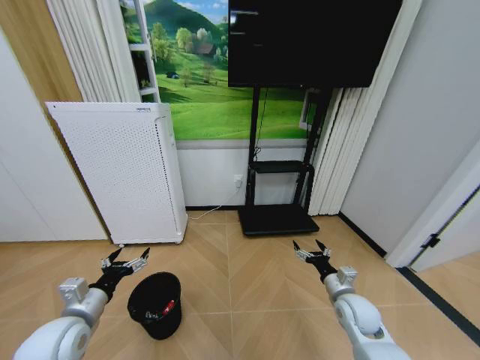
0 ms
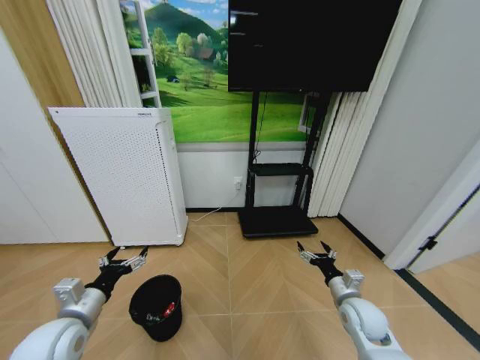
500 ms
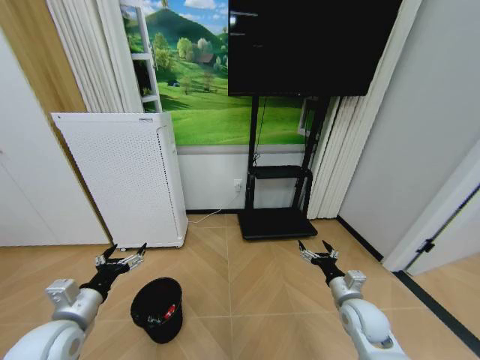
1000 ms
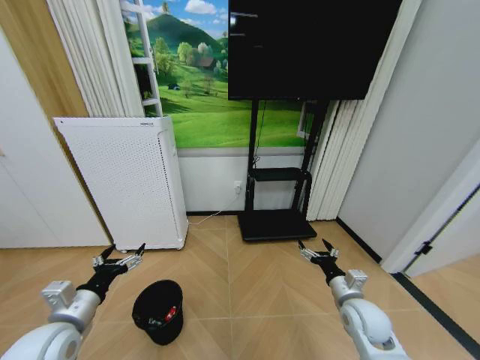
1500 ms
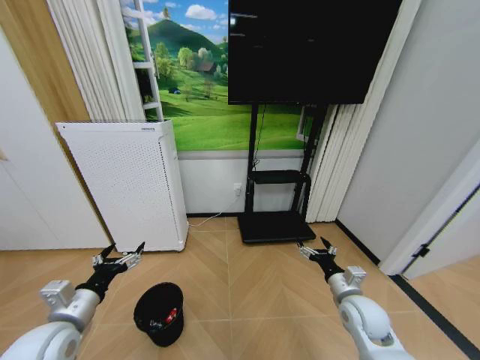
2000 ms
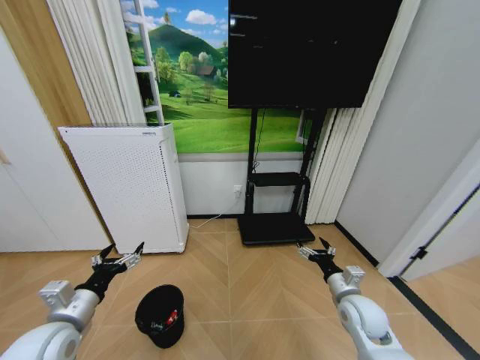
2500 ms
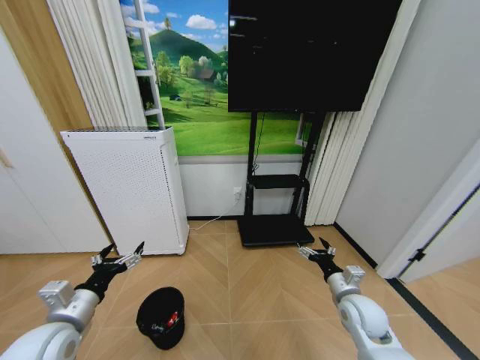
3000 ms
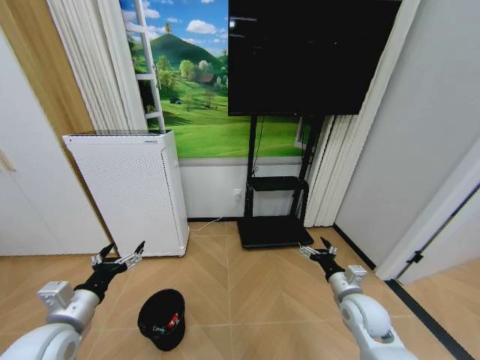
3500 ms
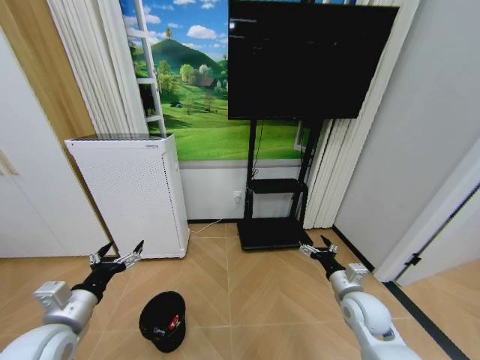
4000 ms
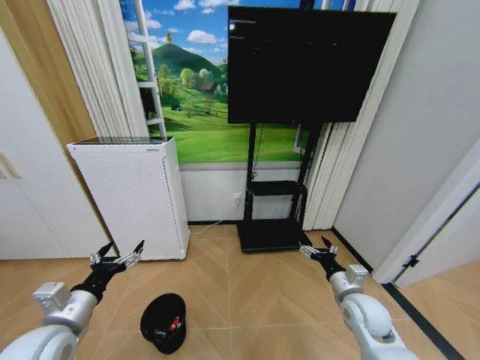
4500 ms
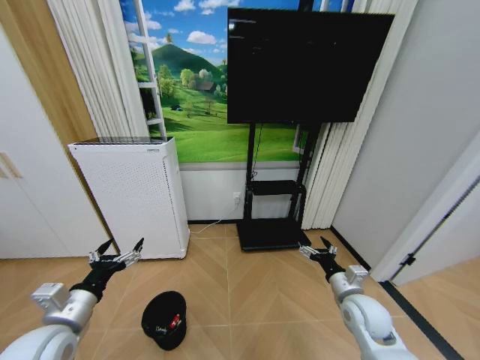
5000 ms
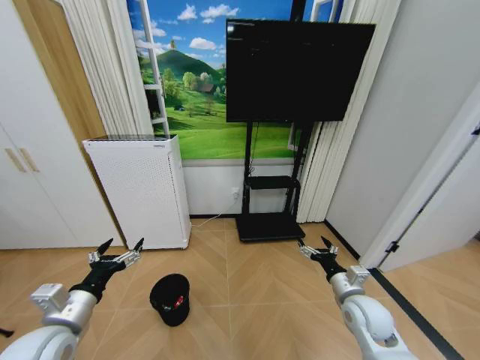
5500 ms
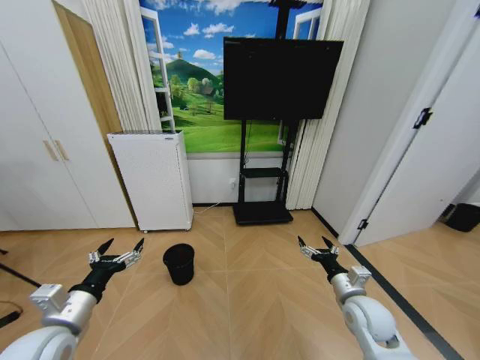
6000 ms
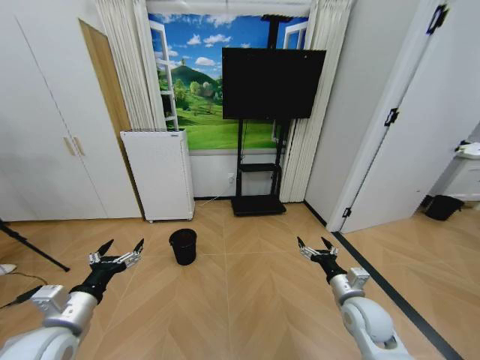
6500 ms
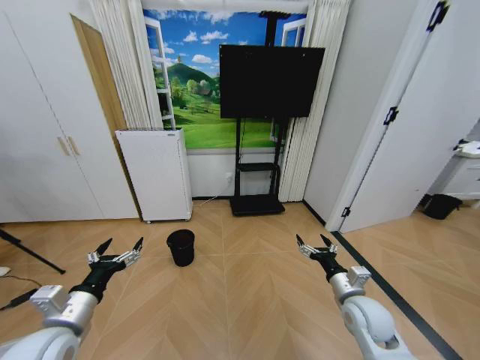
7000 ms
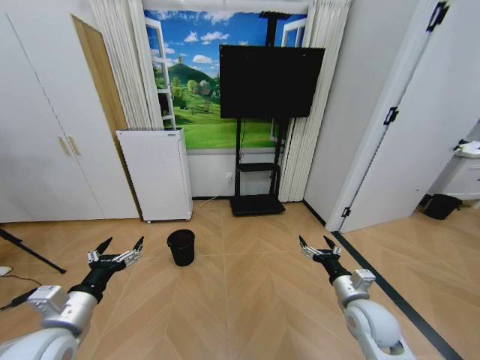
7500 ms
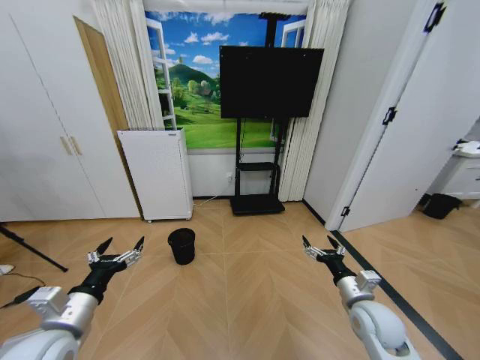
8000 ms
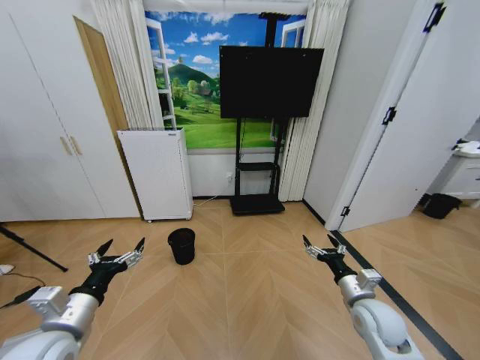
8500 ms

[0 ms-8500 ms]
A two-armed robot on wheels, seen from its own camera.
Task of the whole recording: Pick up the trash bin and place the garbage on the floor into it.
2000 ms to 4000 ms: Both grippers stay put.
6500 ms to 8500 ms: The grippers move only a little.

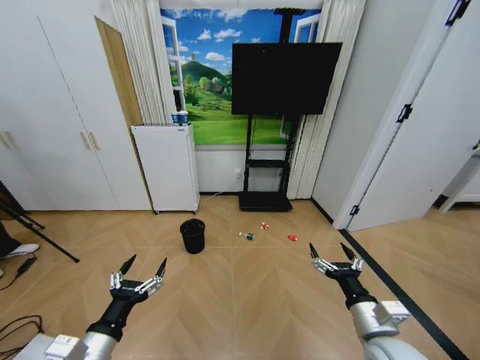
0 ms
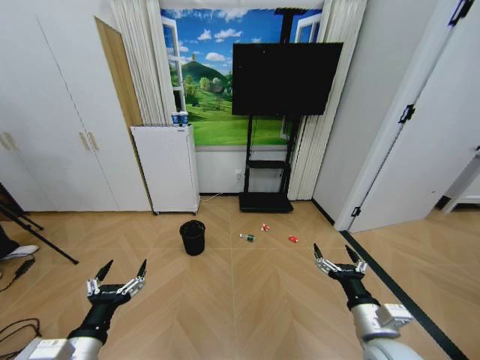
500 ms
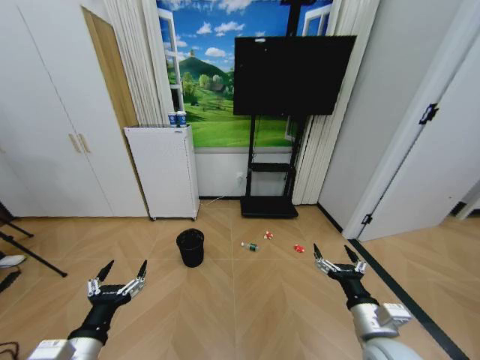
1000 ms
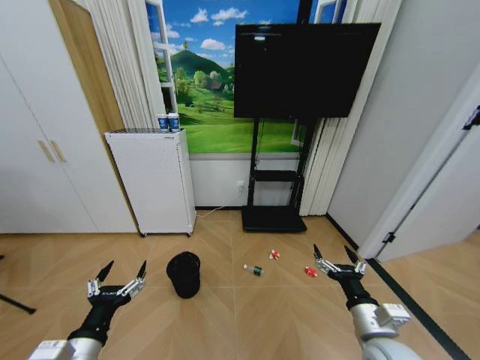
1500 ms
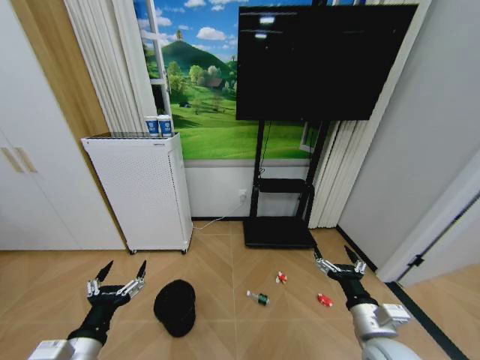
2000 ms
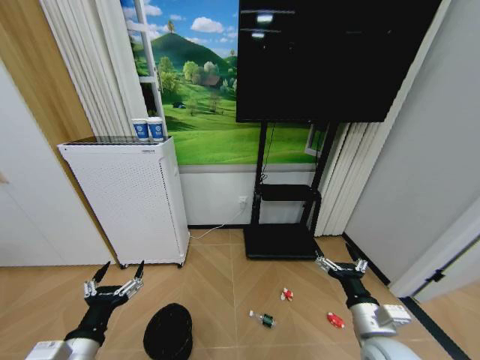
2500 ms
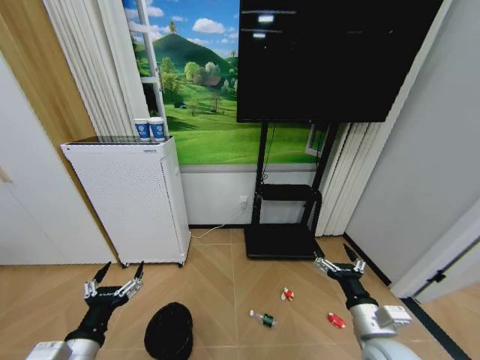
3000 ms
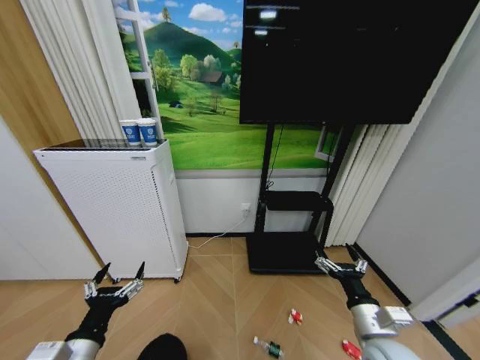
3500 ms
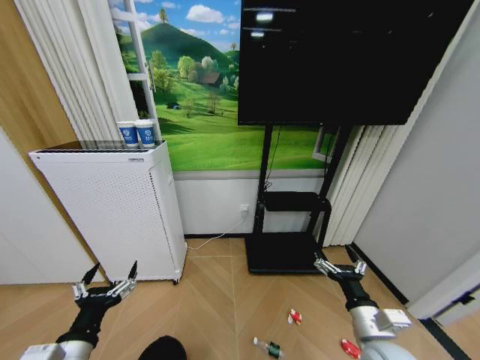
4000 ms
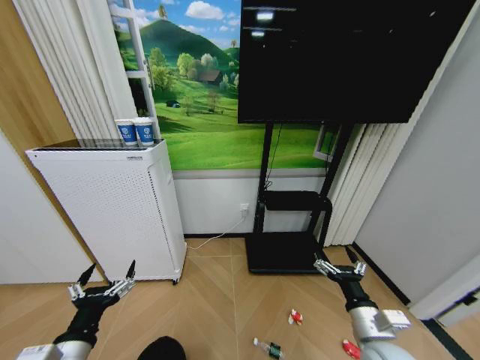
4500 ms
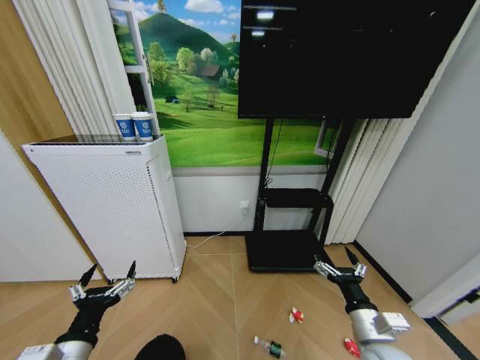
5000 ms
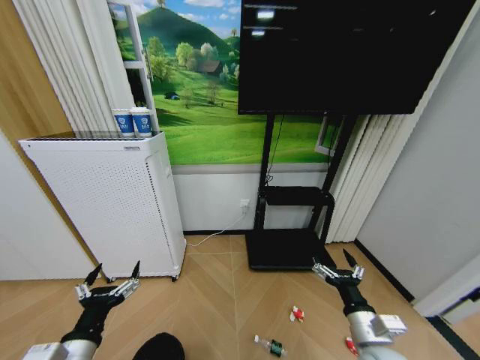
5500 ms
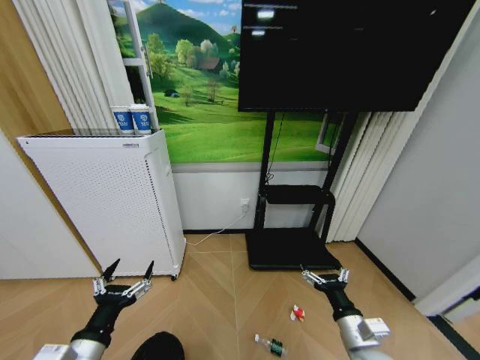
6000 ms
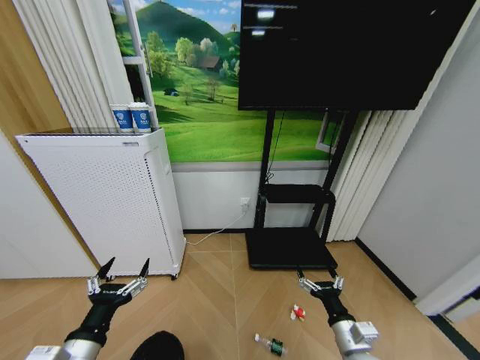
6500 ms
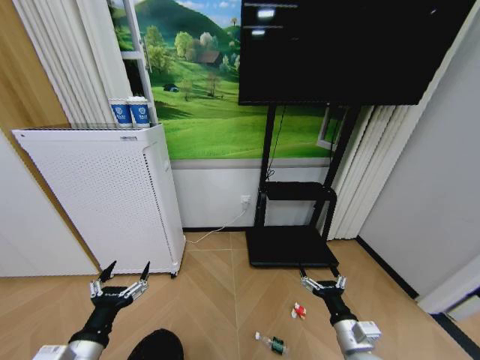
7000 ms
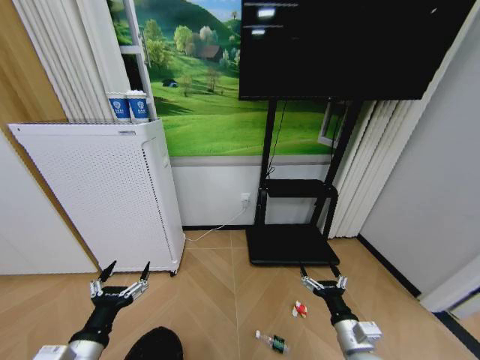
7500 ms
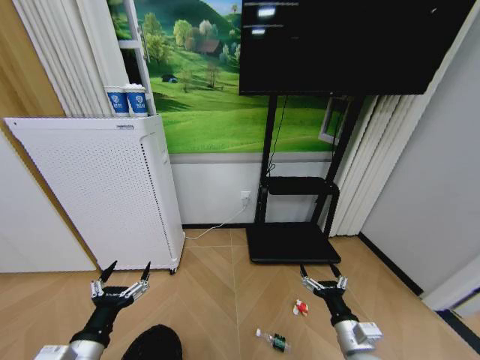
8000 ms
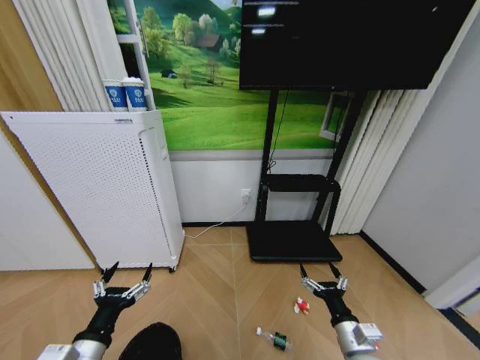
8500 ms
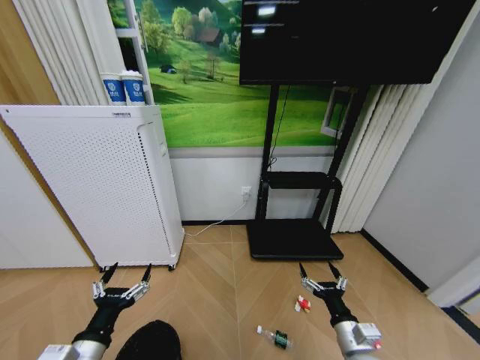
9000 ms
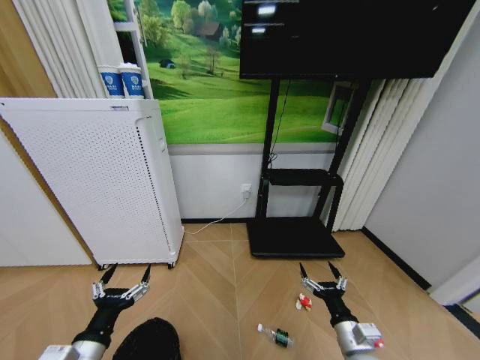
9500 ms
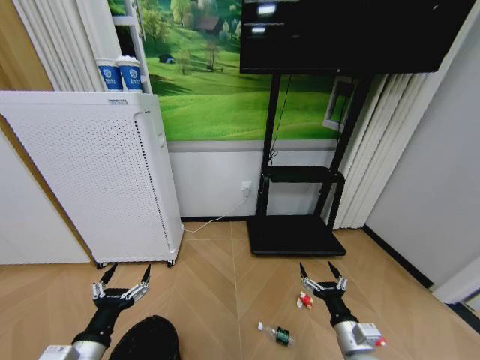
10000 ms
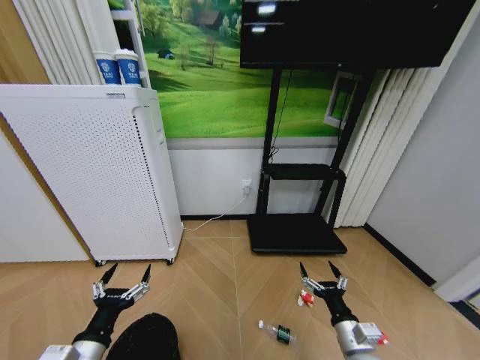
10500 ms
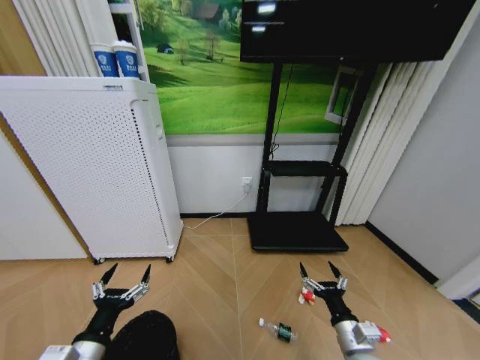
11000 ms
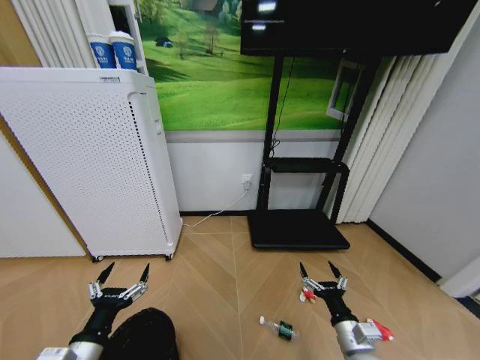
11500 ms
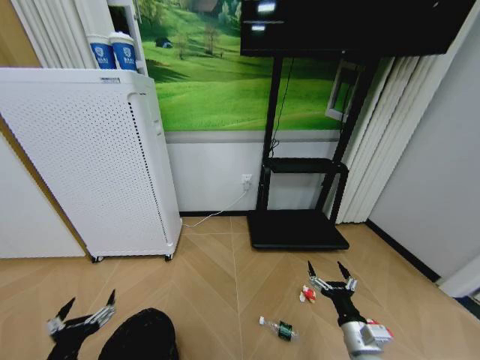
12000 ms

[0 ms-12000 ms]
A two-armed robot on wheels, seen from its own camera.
Task of the whole recording: Pick up the trash bin and place the garbage on the floor into it.
6000 ms to 8000 ms: The grippers make only small movements.

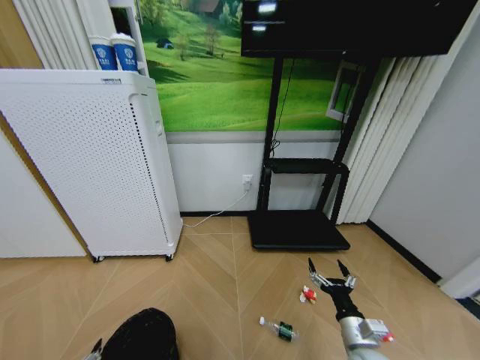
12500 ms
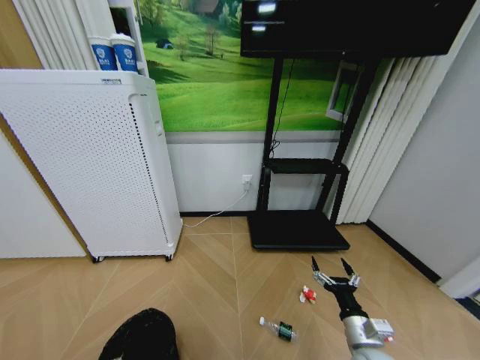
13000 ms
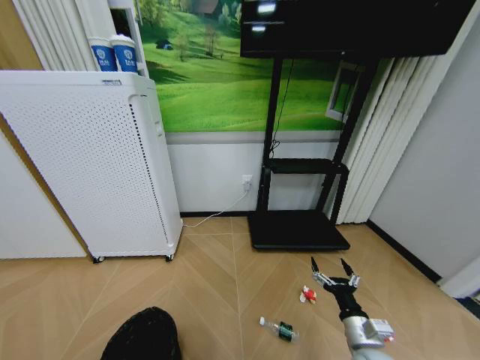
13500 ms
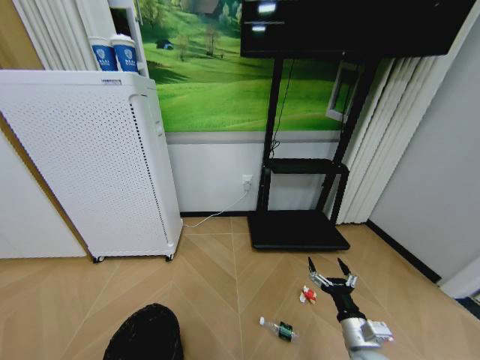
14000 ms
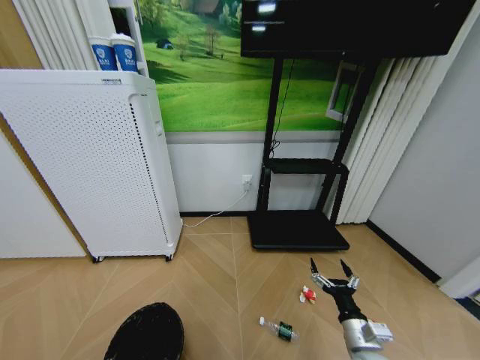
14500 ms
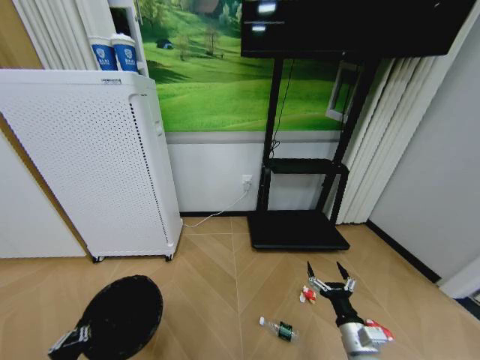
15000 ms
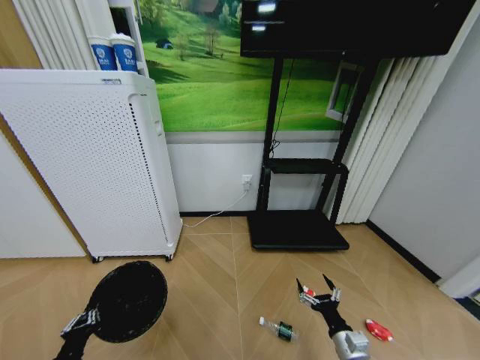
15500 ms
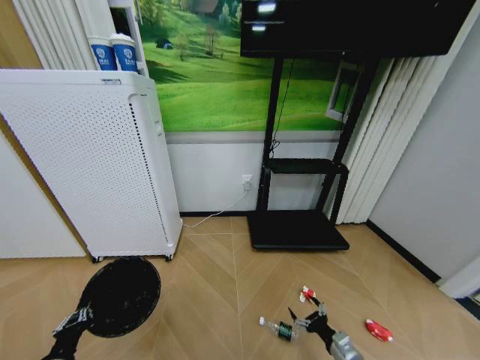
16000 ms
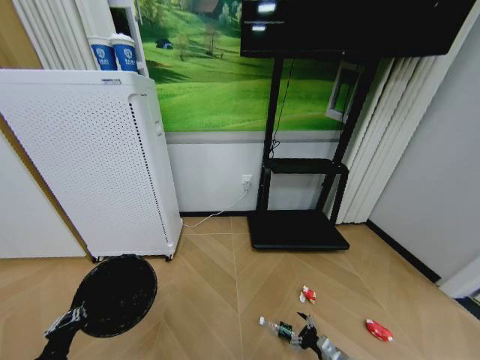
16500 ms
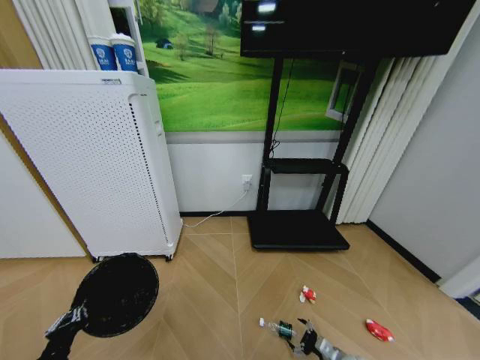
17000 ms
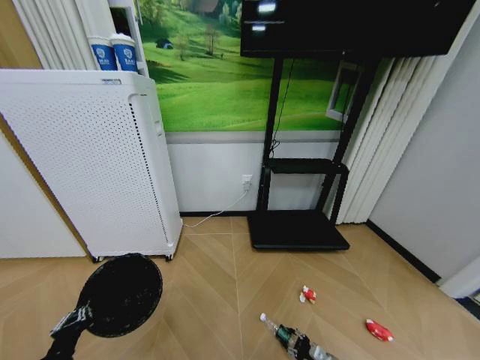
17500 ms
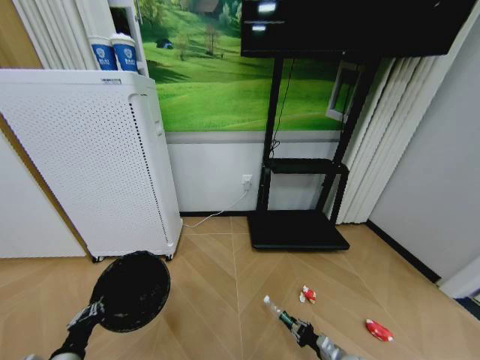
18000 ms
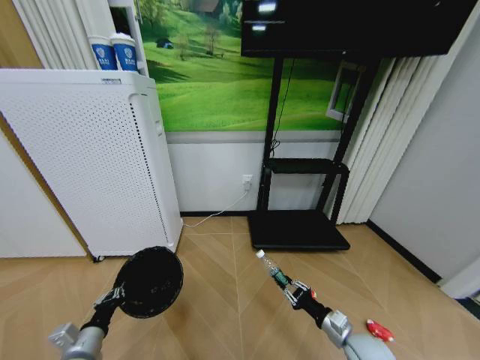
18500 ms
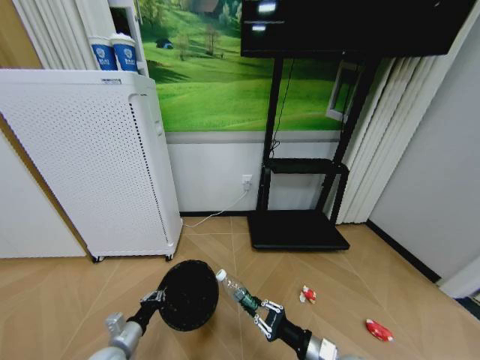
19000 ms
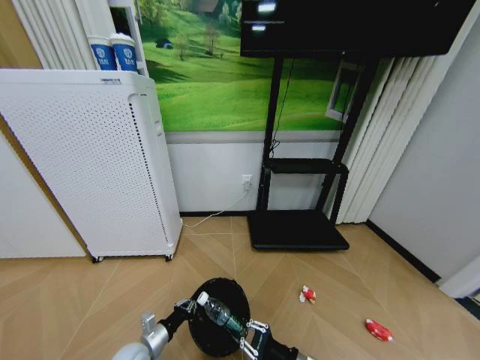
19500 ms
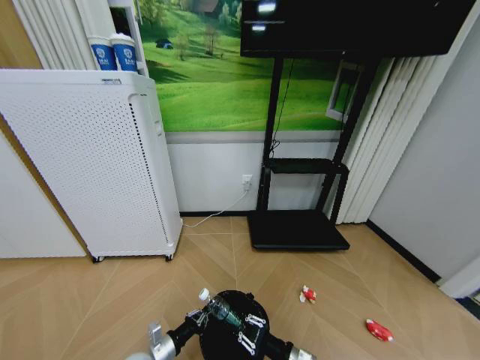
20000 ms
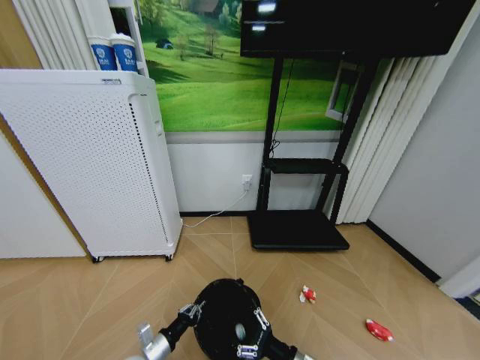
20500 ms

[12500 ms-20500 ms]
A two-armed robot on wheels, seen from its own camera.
Task of the whole recording: Pick up the trash bin and place the garbage on the floor into it.
12500 ms to 14500 ms: The left gripper moves downward, about 5 cm, and closes its fingers.
14500 ms to 16500 ms: The right gripper shifts about 15 cm downward. The left gripper is displaced to the left and forward by about 10 cm.
16500 ms to 18500 ms: The left gripper heads forward, covering roughly 5 cm; the right gripper is displaced upward by approximately 15 cm, and closes its fingers.
18500 ms to 20500 ms: The right gripper travels to the left and backward by approximately 15 cm, and opens; the left gripper moves to the right and downward, about 15 cm.
